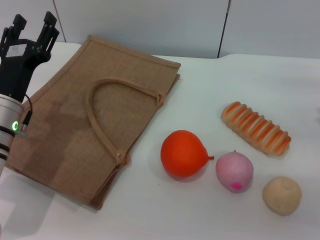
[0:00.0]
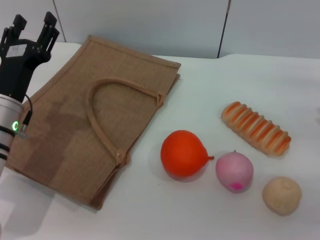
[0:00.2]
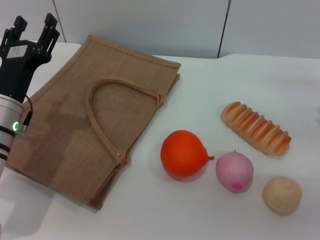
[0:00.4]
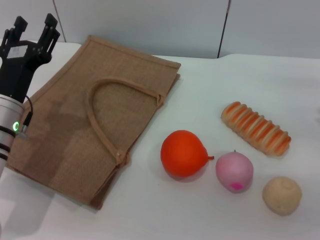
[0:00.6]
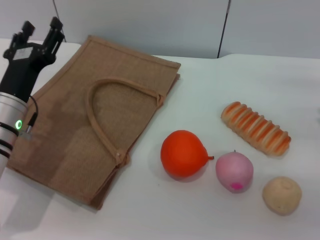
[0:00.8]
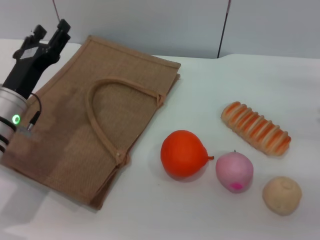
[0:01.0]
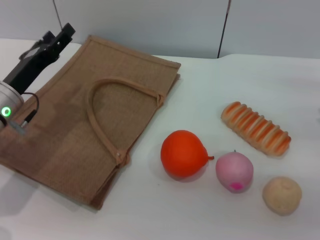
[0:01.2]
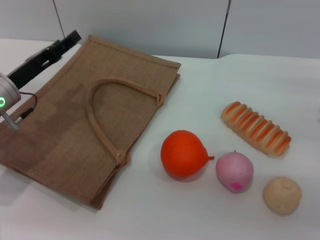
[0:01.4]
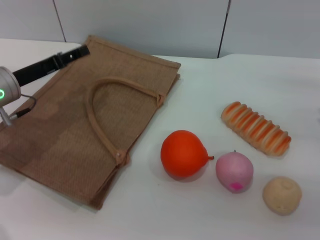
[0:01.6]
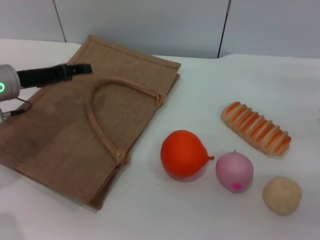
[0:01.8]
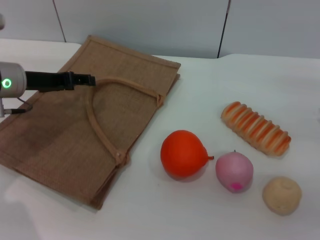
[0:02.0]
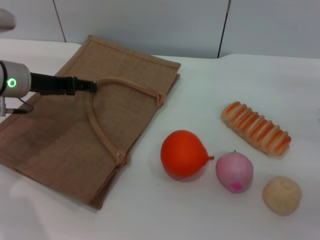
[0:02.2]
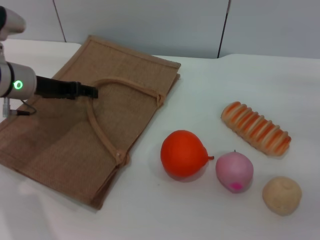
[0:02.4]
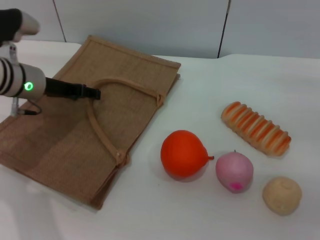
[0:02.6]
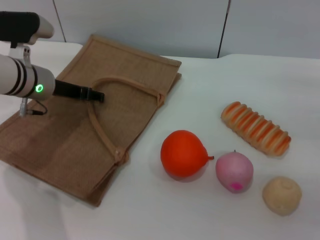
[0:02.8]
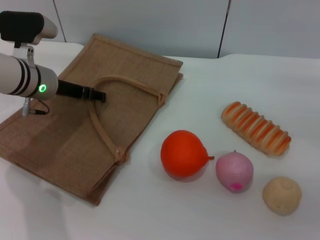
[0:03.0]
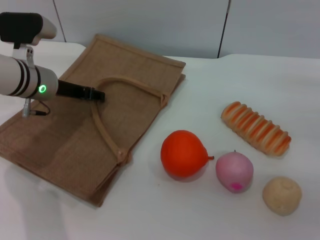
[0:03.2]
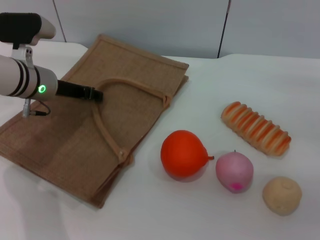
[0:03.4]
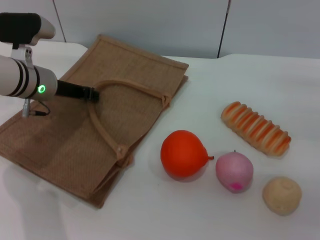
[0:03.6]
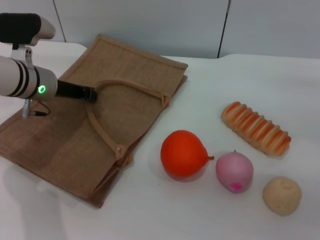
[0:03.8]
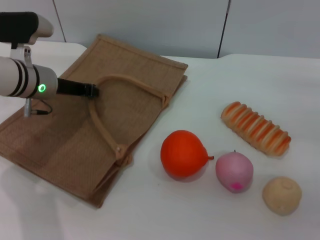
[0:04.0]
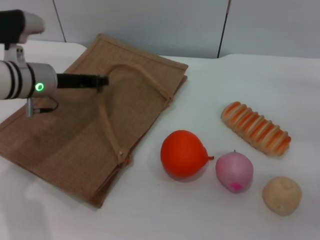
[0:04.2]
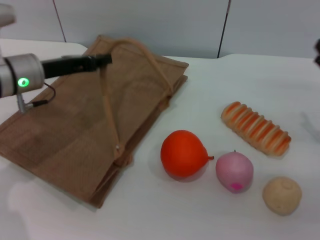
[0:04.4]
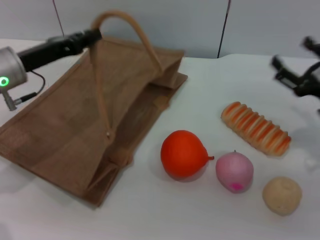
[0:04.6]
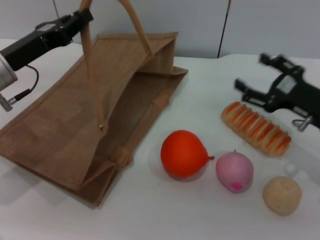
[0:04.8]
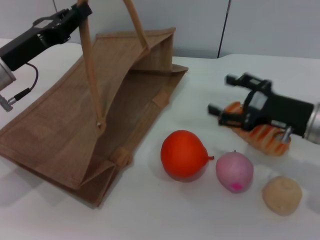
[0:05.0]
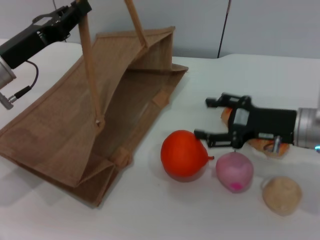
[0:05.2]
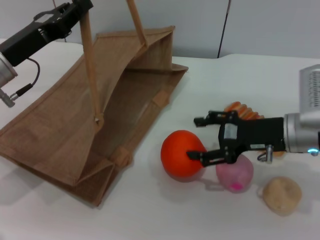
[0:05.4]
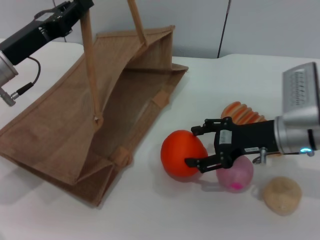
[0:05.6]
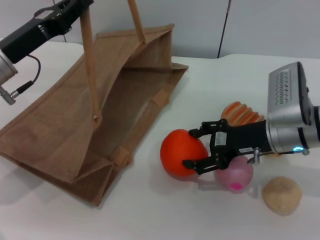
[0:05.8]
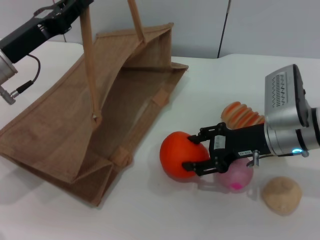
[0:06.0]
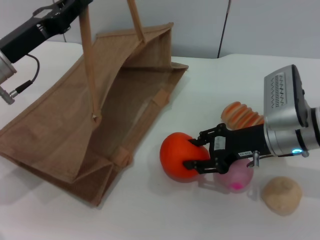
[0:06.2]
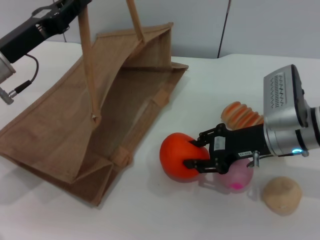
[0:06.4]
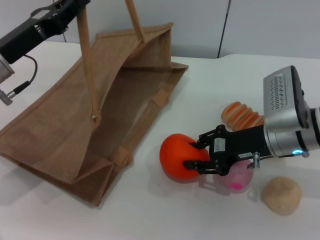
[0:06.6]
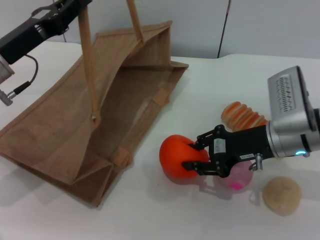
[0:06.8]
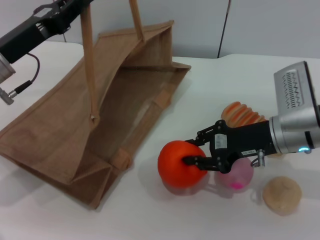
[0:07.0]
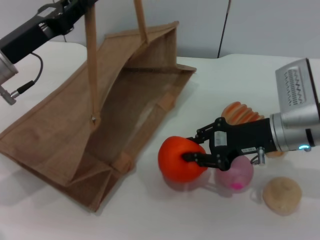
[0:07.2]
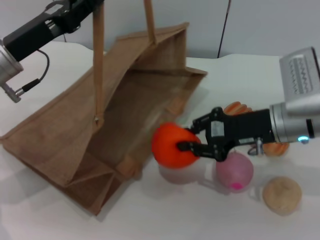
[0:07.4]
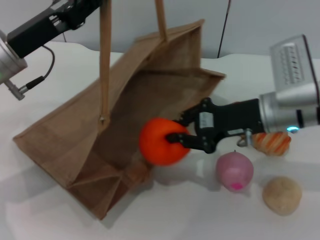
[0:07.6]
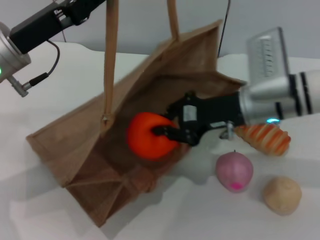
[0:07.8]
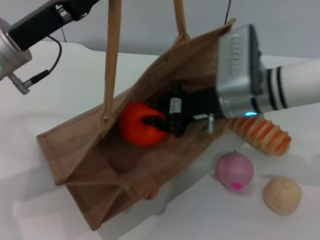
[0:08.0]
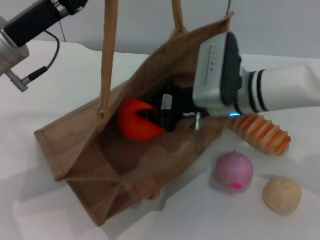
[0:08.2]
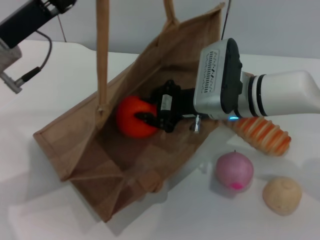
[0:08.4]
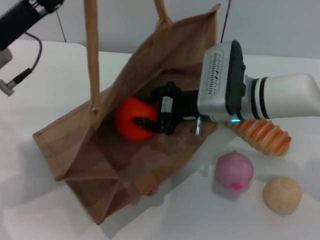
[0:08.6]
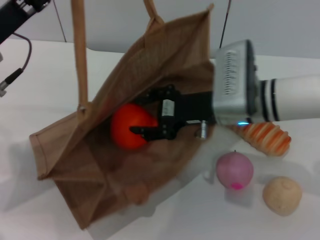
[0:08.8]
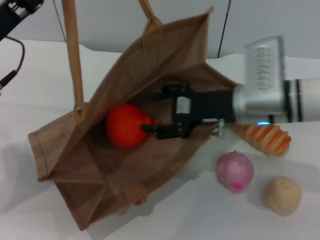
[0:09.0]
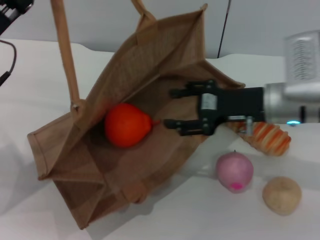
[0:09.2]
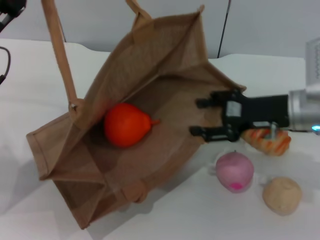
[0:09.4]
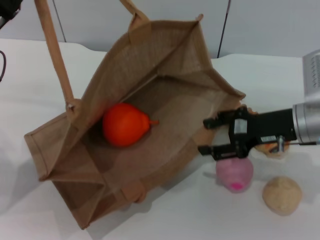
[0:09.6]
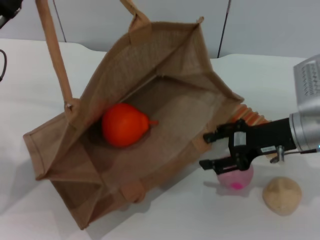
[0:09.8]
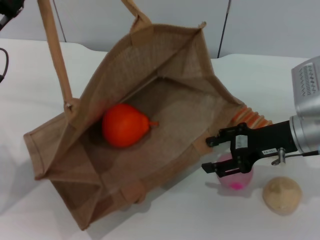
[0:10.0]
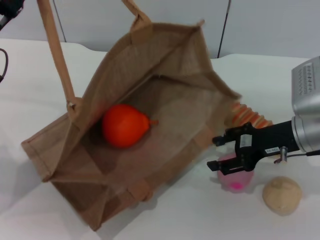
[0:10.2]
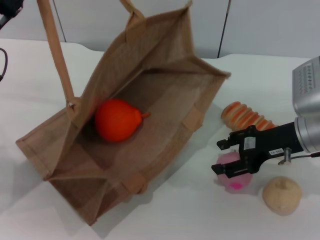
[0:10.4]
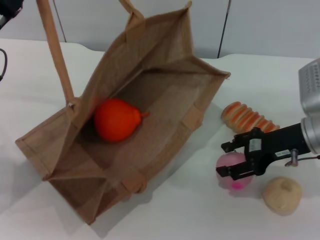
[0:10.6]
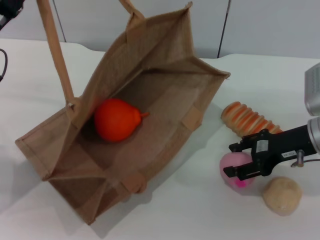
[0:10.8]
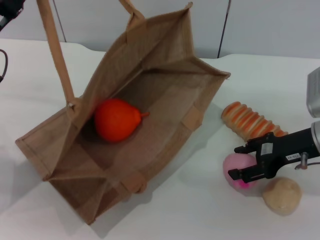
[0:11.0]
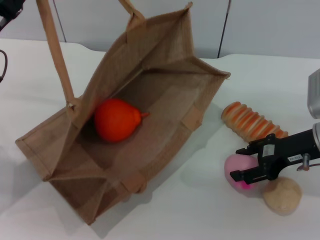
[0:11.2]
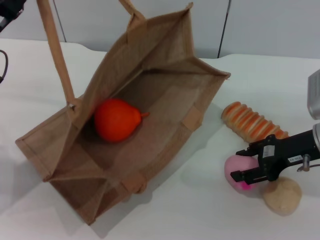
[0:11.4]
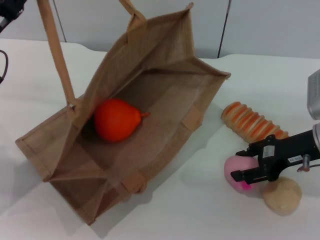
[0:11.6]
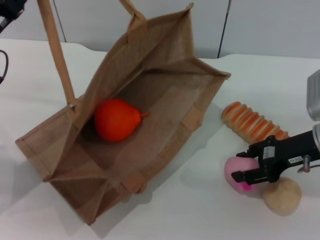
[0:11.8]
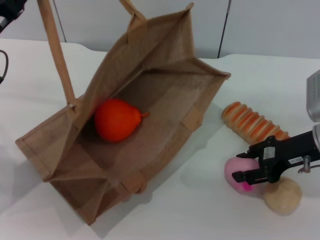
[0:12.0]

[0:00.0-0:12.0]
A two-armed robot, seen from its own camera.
Task of the whole recording: pick up the orange and peach from the table and place it in the brown handbag.
Step, 0:00.0 to 0:04.4: Lift the woven bag with the left gripper to open it.
Step, 0:04.6 to 0:07.2: Pick up the orange with the right gripper.
Step, 0:07.4 to 0:09.0: Place the orange into the woven bag with the right gripper.
0:00.0 to 0:01.6: The left gripper is displaced forward by roughly 5 cm.
0:01.6 to 0:03.0: The left gripper travels forward by about 5 cm.
0:03.0 to 0:04.4: The left gripper closes its fingers.
0:04.4 to 0:06.0: The right gripper goes about 15 cm to the left.
0:06.0 to 0:07.6: The right gripper closes.
0:07.6 to 0:09.0: The right gripper opens.
0:09.0 to 0:10.4: The right gripper goes approximately 10 cm to the right.
0:10.4 to 0:12.0: The grippers stay close to where they were, moving slightly.

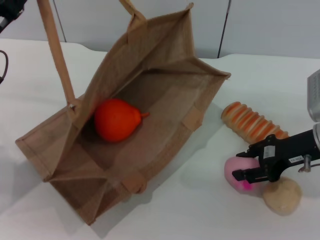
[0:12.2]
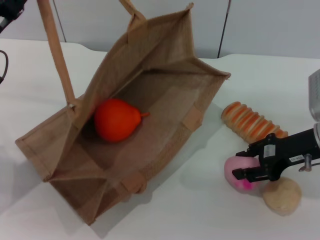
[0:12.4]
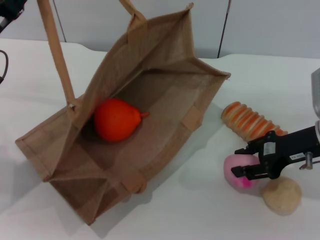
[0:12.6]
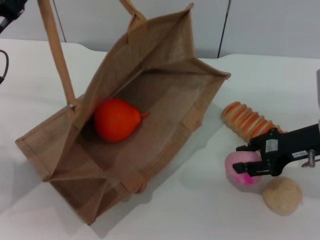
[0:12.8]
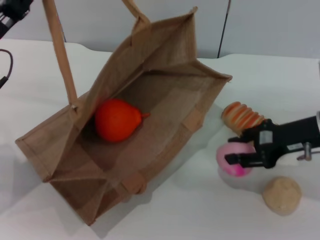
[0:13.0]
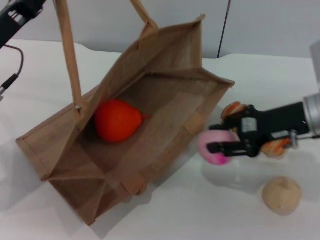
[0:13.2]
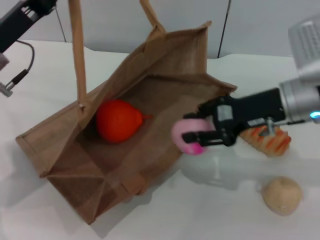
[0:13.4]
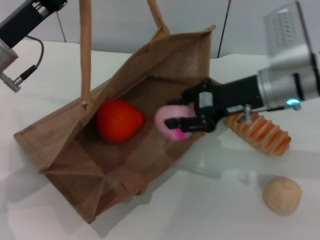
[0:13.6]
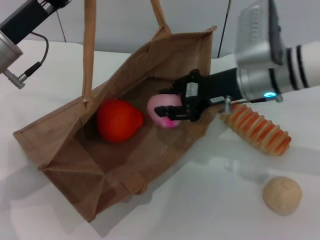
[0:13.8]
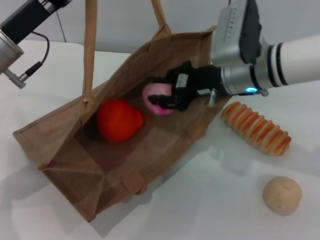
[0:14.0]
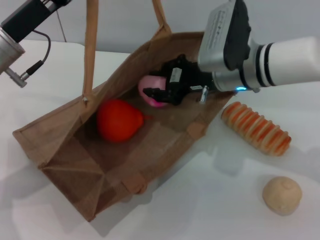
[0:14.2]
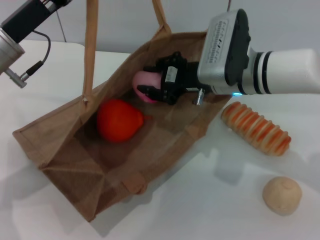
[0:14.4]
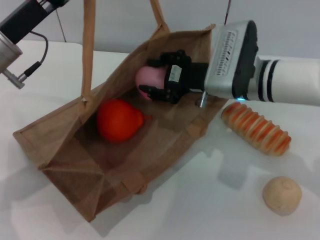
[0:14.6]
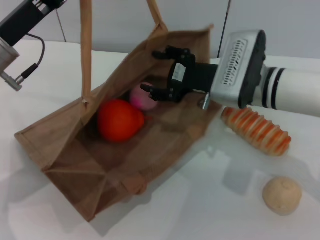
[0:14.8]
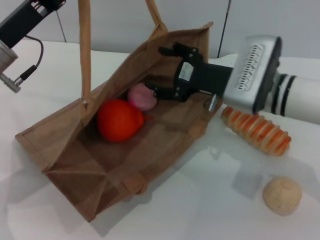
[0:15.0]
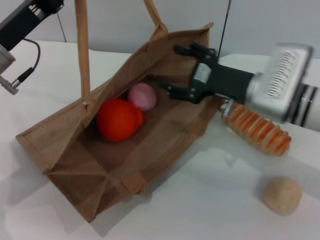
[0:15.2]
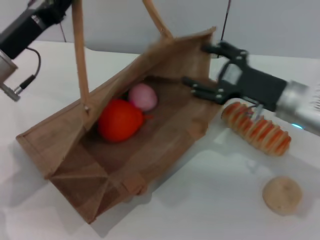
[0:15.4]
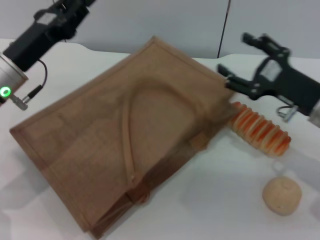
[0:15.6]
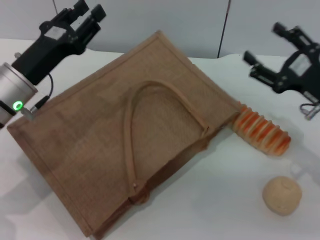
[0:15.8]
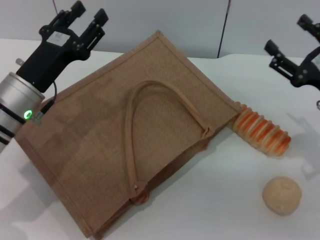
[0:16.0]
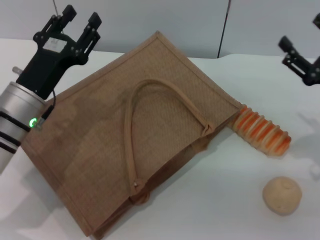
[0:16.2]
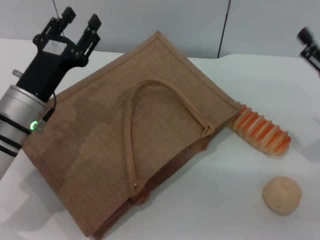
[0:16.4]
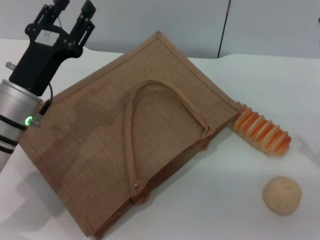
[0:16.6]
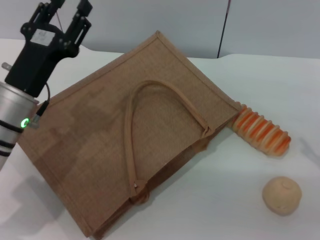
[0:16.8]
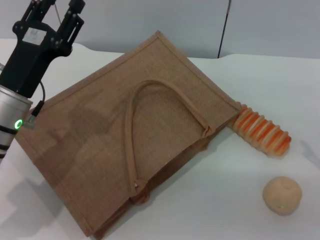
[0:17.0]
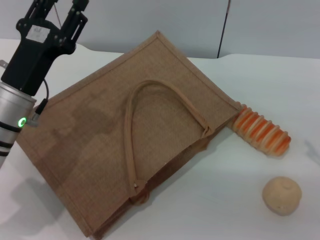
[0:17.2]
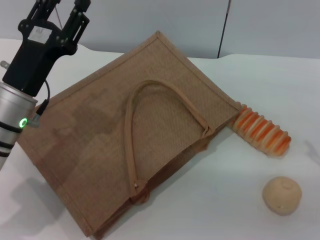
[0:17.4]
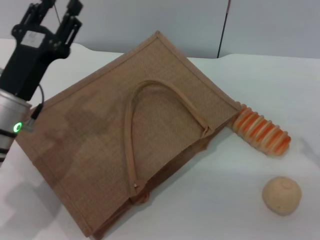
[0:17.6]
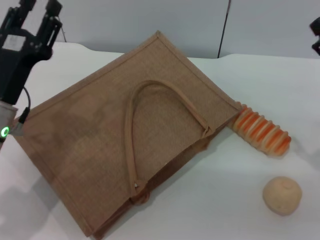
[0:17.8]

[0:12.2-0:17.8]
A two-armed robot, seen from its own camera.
Task of the whole recording: pick up the orange and peach from the table and place it in the brown handbag.
Step, 0:13.2 to 0:15.0: Place the peach into the woven bag with the right gripper.
Step, 0:15.4 to 0:16.0: Lower the woven bag with the left gripper to close it.
0:12.2 to 0:13.6: The right gripper travels to the left and upward by approximately 10 cm.
0:13.6 to 0:15.0: The right gripper ends up roughly 5 cm from where it was, and opens its fingers.
0:15.0 to 0:16.4: The left gripper is displaced downward by some 10 cm, and opens; the right gripper travels to the right and backward by some 20 cm.
0:16.4 to 0:17.8: The grippers stay close to where they were, moving slightly.

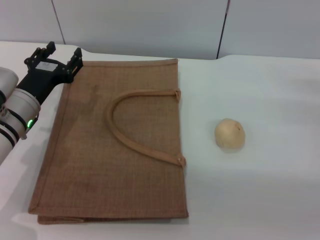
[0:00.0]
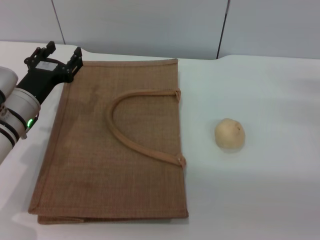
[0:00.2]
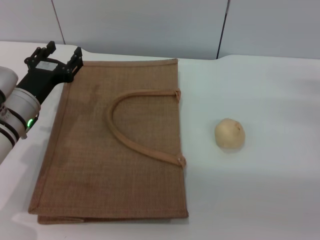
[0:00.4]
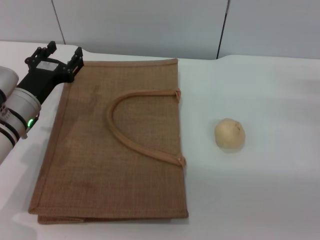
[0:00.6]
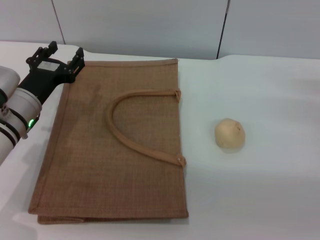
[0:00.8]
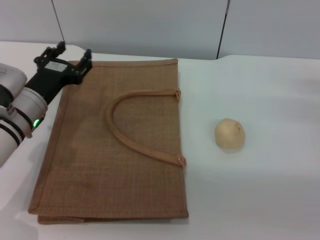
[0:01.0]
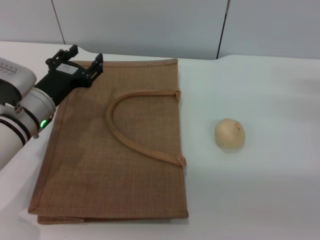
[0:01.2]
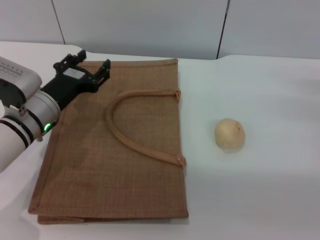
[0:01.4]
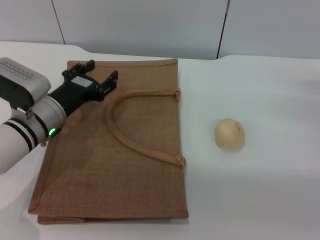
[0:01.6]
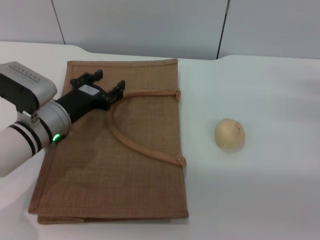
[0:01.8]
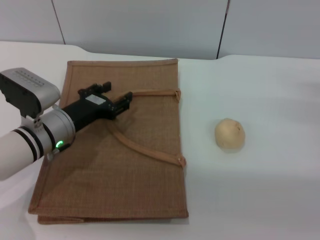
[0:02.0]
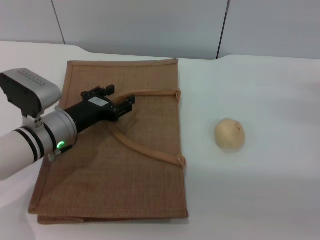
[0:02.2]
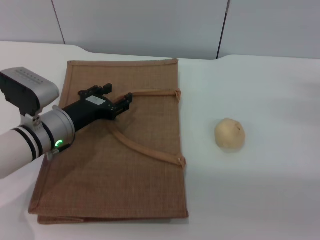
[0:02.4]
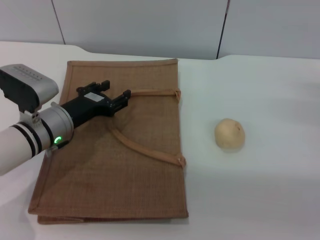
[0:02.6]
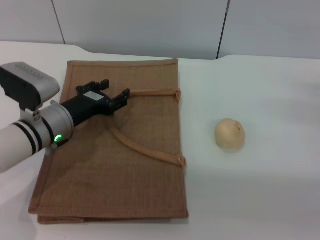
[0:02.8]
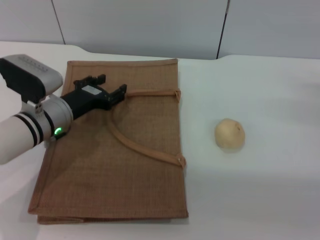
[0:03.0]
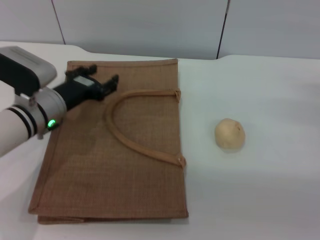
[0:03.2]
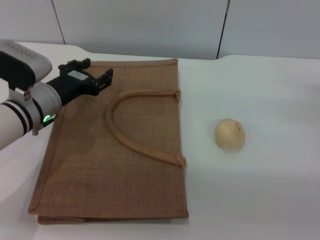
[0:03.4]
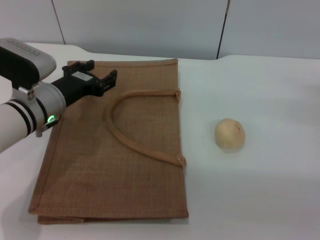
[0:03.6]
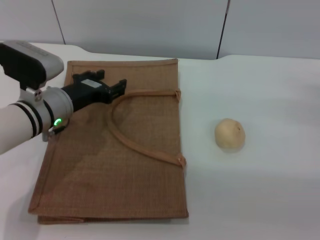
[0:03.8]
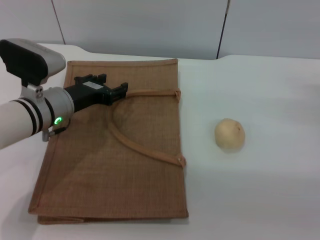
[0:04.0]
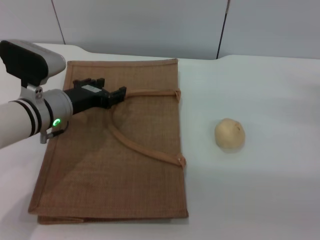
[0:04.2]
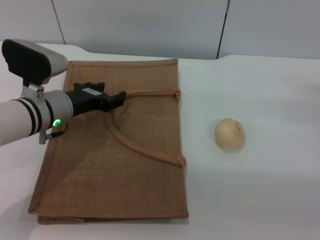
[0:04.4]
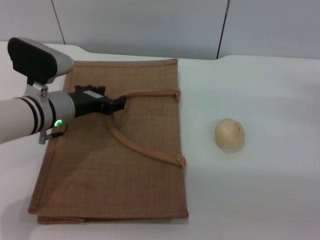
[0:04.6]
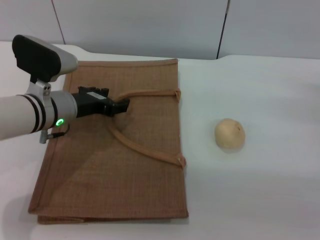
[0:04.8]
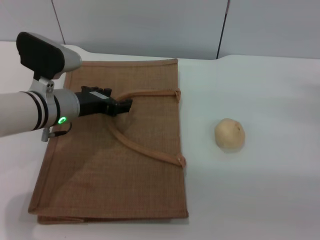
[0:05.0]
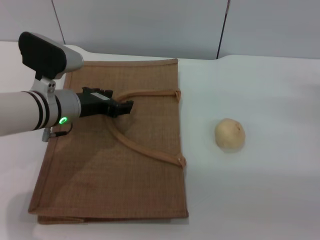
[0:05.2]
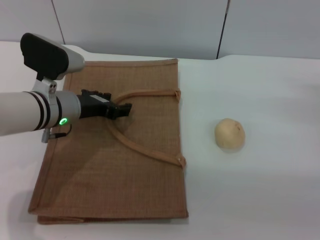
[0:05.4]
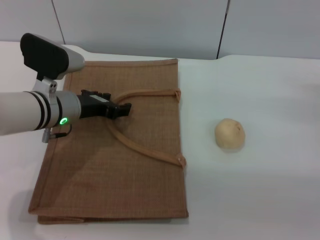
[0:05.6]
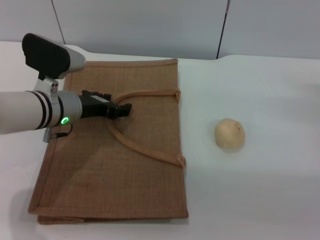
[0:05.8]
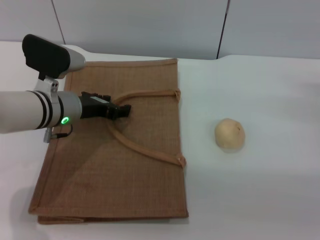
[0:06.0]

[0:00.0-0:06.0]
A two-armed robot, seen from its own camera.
Task of the whole recording: pick up the egg yolk pastry from the table and place it in the brown handbag.
0:00.0 to 0:01.6: There are only small adjustments of the grippers.
0:01.6 to 0:03.0: The grippers move only a little.
0:03.0 to 0:04.4: The grippers stay close to where they were, moving slightly.
0:04.4 to 0:06.0: The grippers make only small movements.
